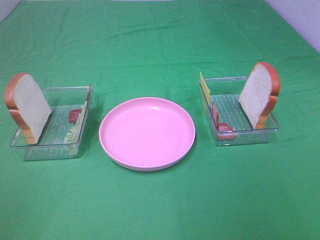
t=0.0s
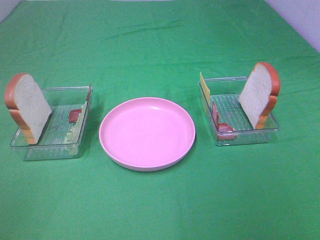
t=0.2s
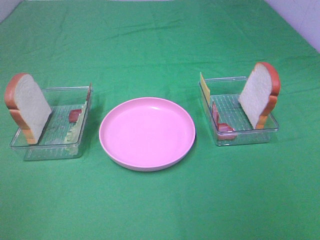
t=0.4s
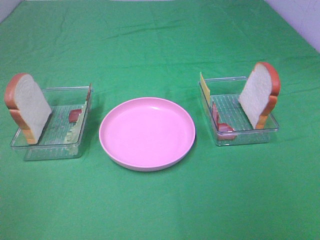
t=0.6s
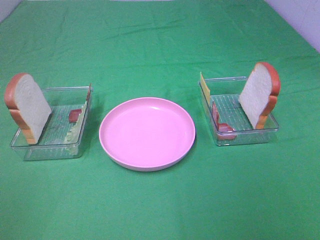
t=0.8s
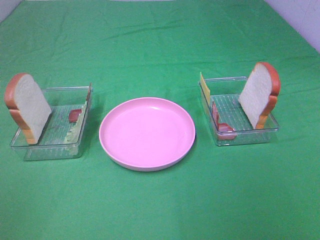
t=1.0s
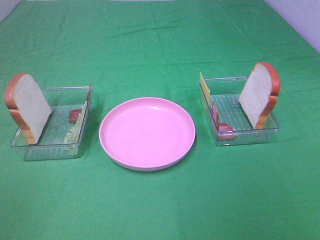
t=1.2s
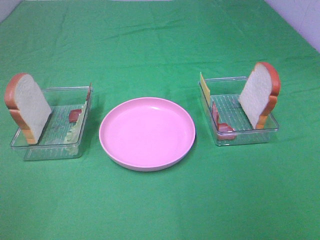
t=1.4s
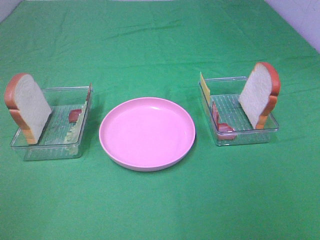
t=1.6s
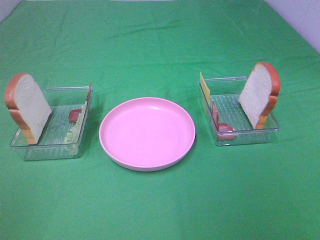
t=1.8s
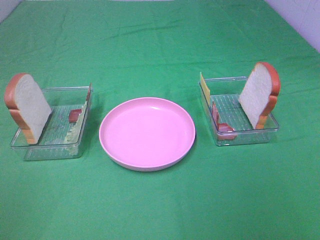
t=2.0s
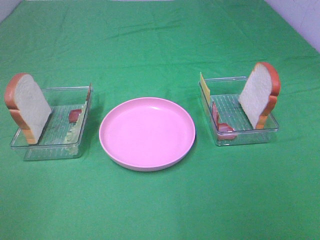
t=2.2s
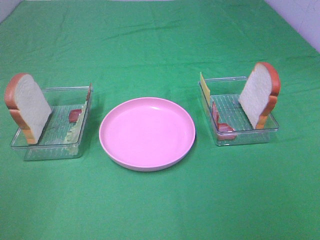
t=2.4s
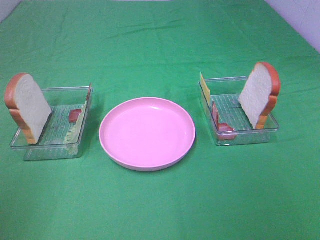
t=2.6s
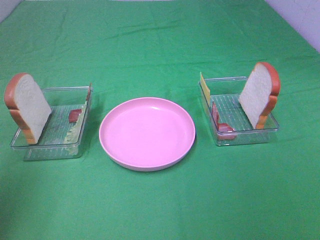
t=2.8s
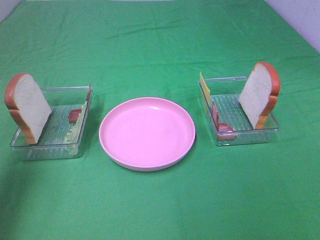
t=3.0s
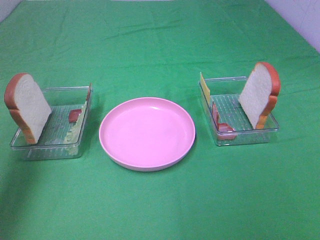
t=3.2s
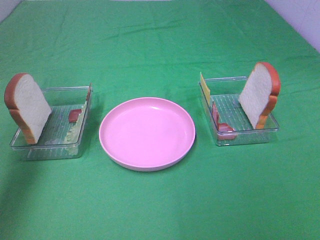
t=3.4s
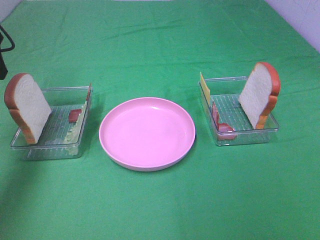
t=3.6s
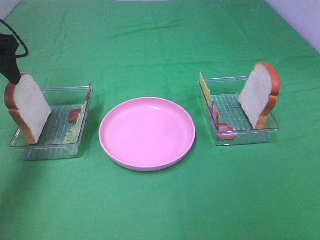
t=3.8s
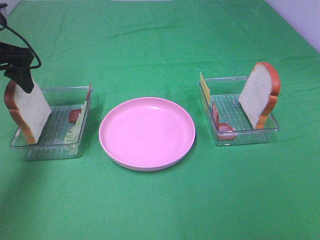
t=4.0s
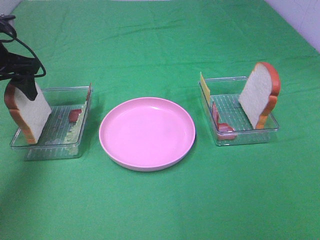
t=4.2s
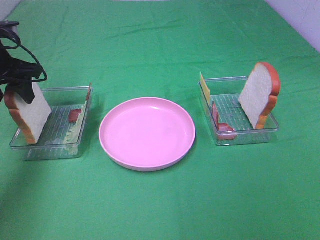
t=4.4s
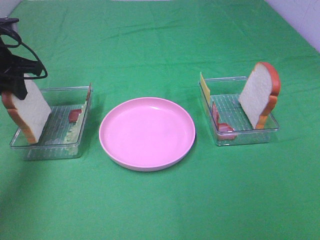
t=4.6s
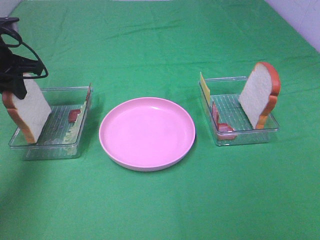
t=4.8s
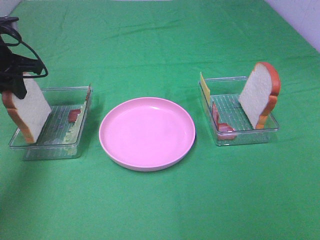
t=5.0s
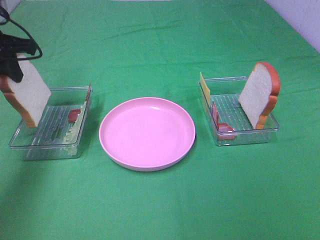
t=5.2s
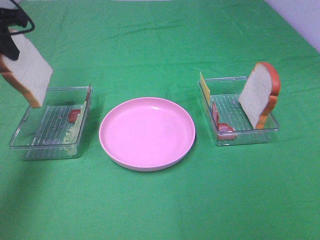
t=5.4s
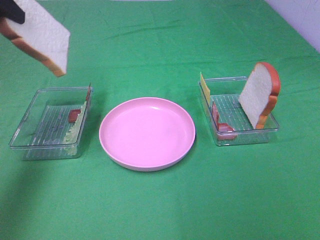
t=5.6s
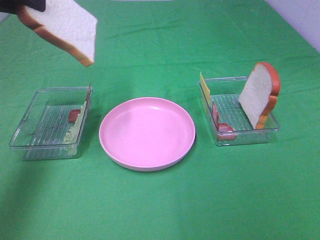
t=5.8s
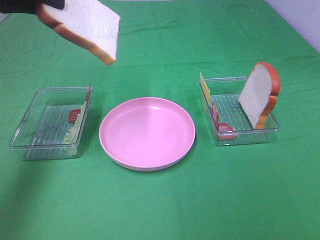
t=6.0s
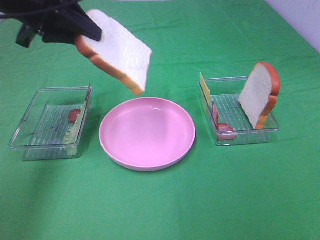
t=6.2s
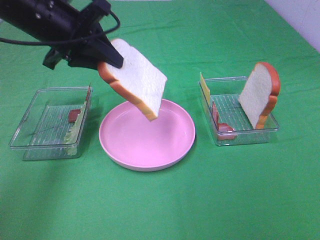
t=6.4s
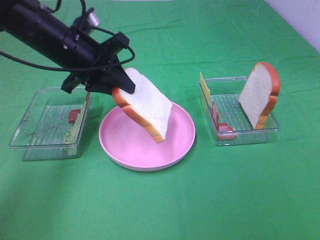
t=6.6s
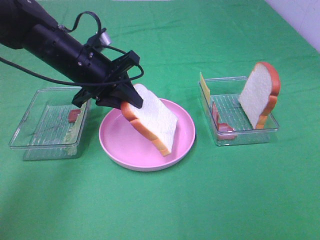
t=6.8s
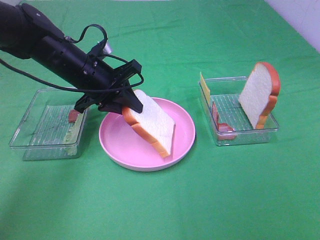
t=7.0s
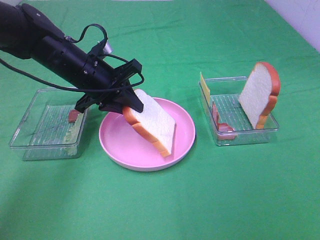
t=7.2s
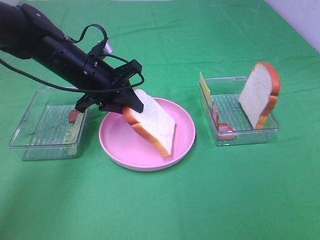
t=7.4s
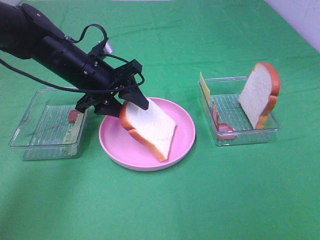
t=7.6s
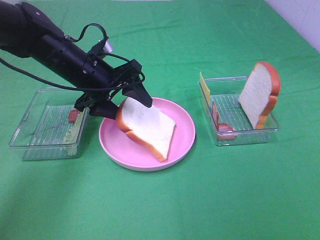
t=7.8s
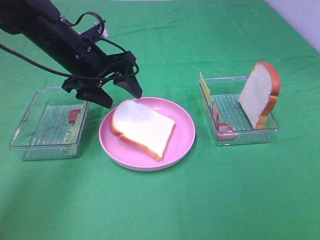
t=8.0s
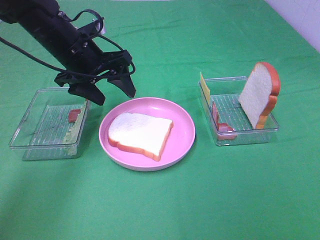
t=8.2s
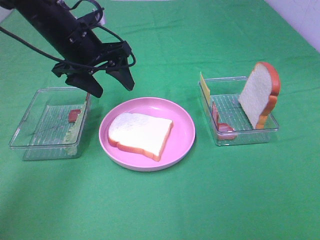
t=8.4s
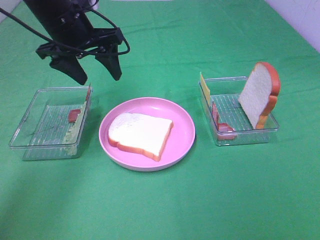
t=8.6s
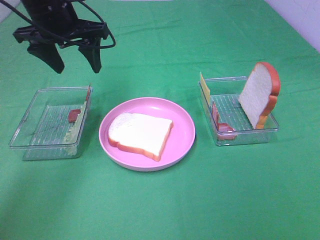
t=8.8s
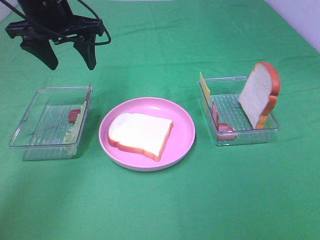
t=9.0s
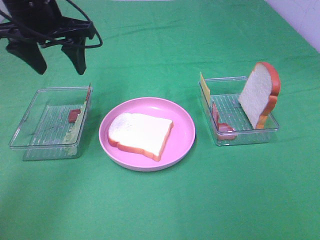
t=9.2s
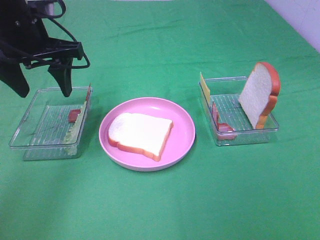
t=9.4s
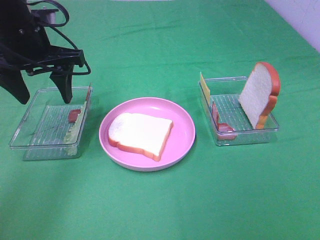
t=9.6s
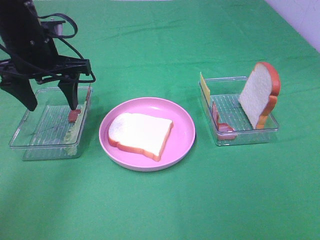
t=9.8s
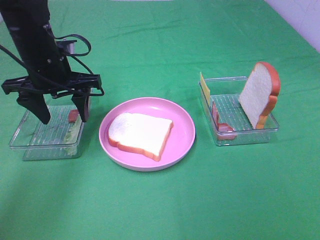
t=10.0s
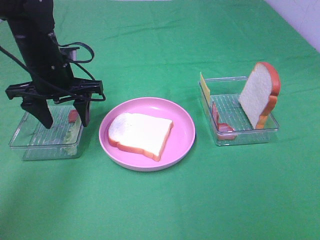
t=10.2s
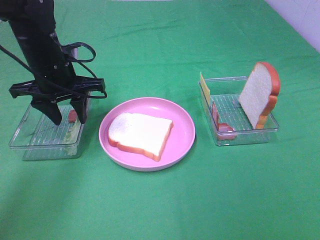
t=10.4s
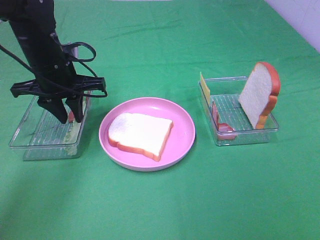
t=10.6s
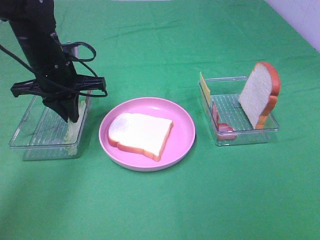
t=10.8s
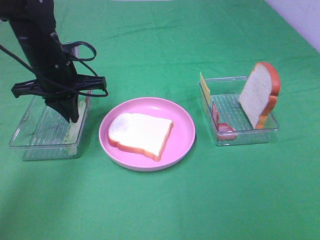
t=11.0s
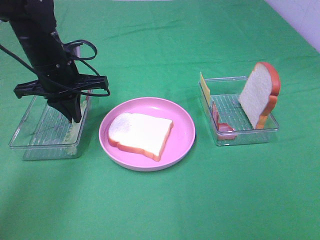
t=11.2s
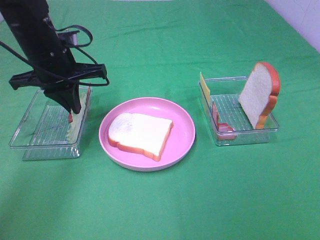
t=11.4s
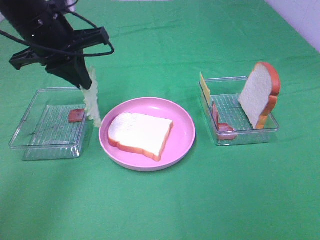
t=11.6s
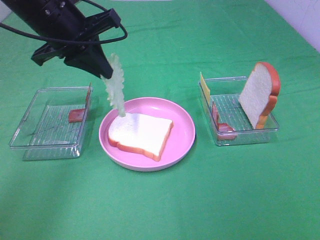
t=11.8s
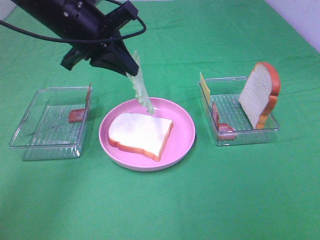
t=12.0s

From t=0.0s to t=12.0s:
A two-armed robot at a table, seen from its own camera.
Task of the whole recording: Make sandwiches.
Step, from t=0.0s to t=4.6s: Left hand:grab the bread slice.
Step, from t=4.8s to t=8.2s: Left hand:place the bread slice on the plate.
Step, from t=8.4s to t=11.2s: Left hand:grab the lettuce slice.
From t=0.0s to t=1.6s: Both grippers stay put.
From t=1.6s to t=3.0s: The left gripper shifts approximately 20 cm forward.
From t=3.0s to t=4.4s: The left gripper heads forward and downward, covering roughly 20 cm.
From t=4.4s to t=6.0s: The left gripper heads upward and to the right, covering some 15 cm, and closes its fingers.
From t=6.0s to t=7.6s: The left gripper goes roughly 20 cm downward and to the right, and opens up.
From t=7.6s to t=9.0s: The left gripper heads upward, covering some 10 cm.
From t=9.0s to t=10.4s: The left gripper moves downward, approximately 10 cm.
From t=10.4s to t=12.0s: The left gripper shifts approximately 10 cm upward and to the right, and closes.

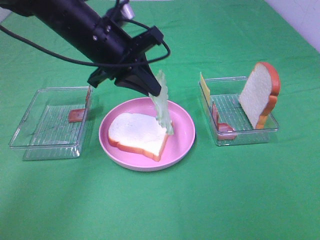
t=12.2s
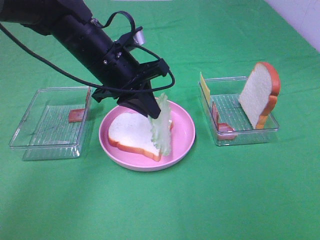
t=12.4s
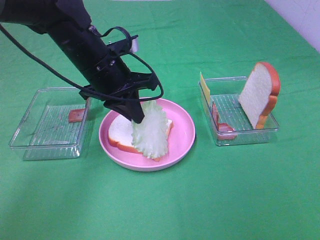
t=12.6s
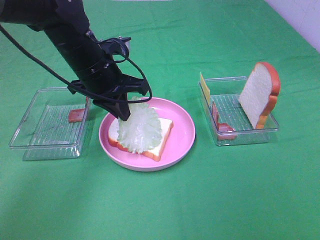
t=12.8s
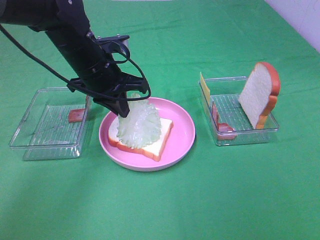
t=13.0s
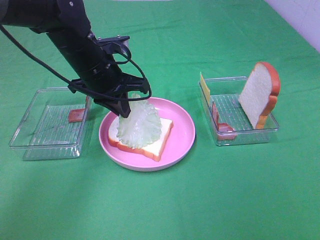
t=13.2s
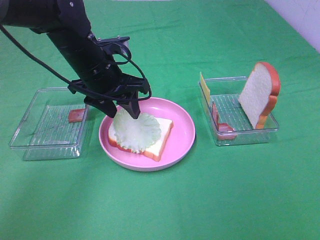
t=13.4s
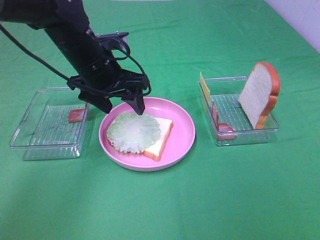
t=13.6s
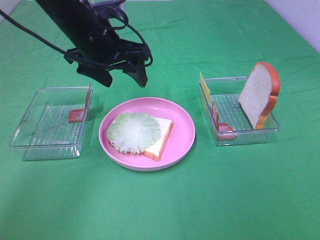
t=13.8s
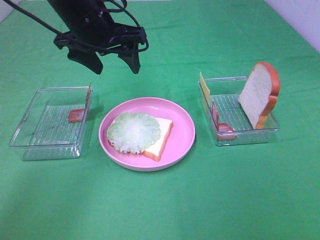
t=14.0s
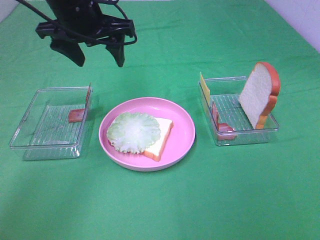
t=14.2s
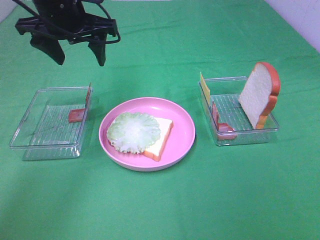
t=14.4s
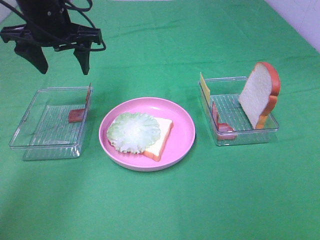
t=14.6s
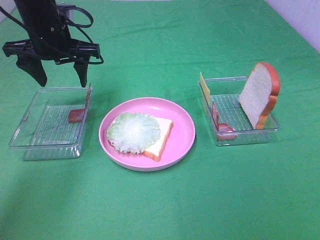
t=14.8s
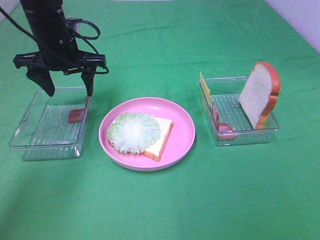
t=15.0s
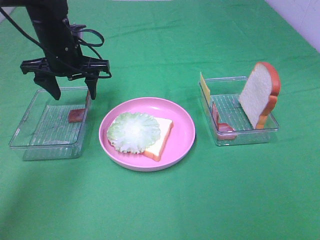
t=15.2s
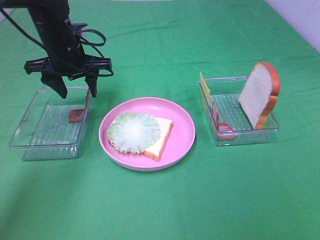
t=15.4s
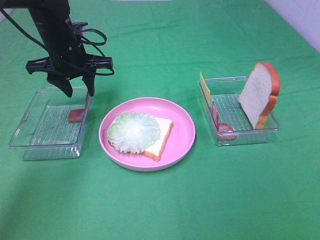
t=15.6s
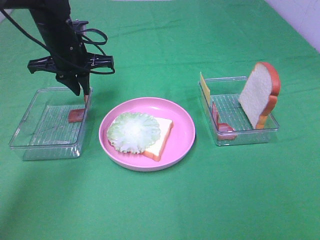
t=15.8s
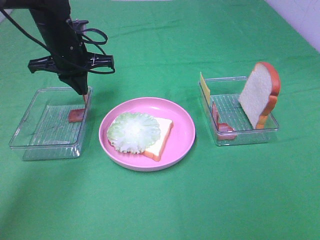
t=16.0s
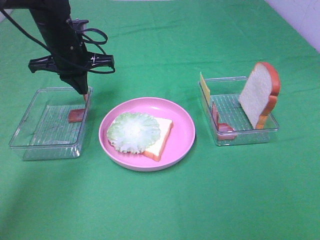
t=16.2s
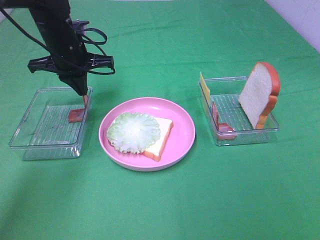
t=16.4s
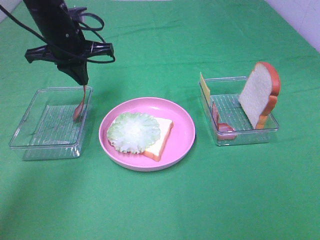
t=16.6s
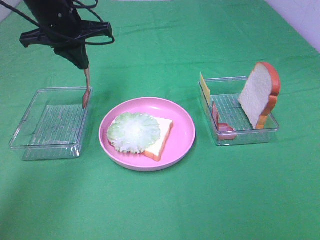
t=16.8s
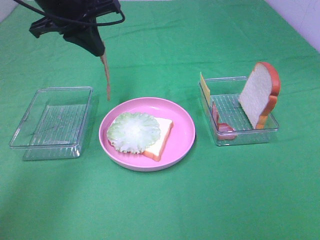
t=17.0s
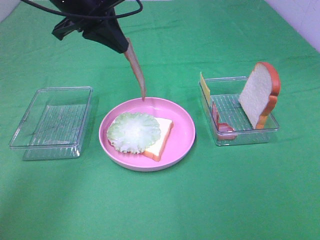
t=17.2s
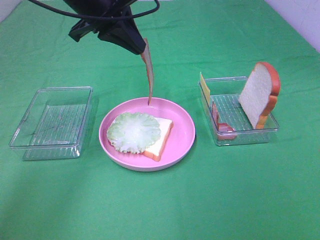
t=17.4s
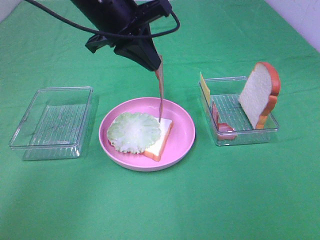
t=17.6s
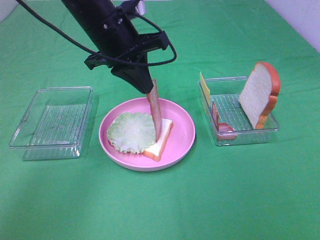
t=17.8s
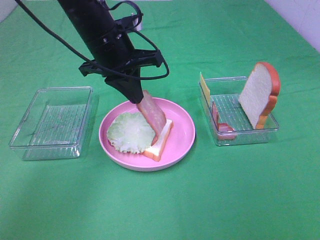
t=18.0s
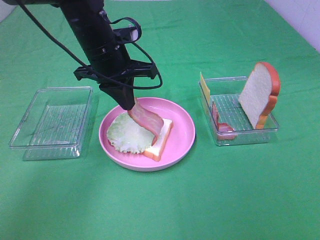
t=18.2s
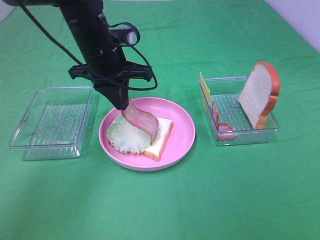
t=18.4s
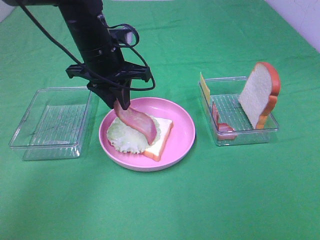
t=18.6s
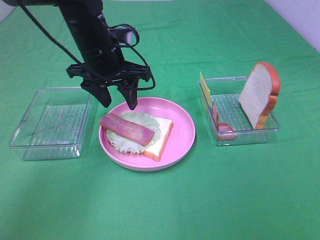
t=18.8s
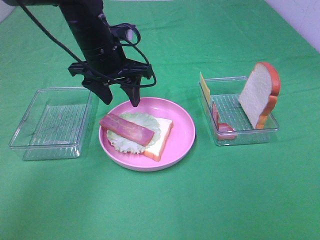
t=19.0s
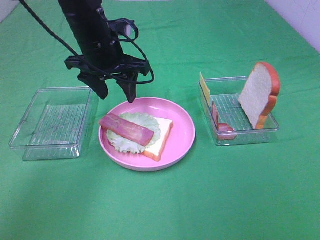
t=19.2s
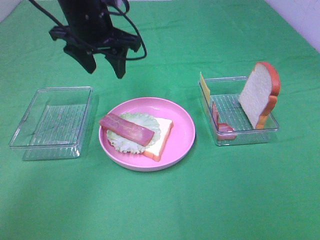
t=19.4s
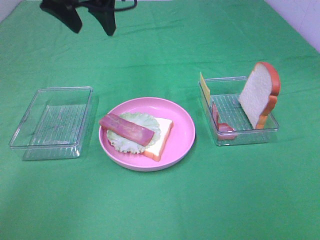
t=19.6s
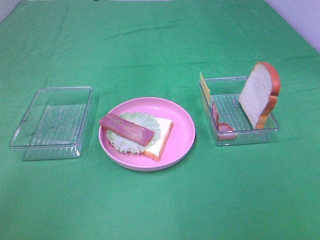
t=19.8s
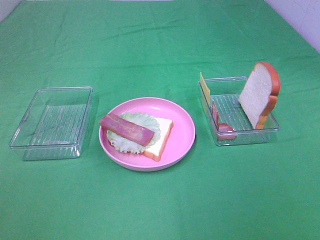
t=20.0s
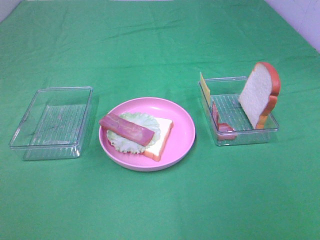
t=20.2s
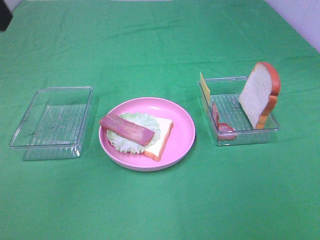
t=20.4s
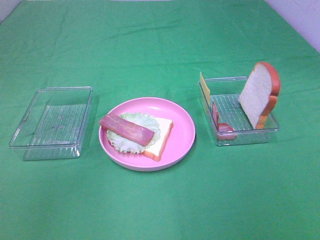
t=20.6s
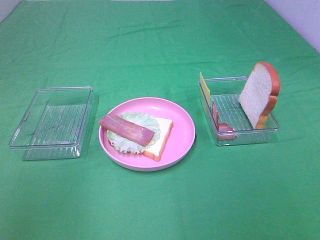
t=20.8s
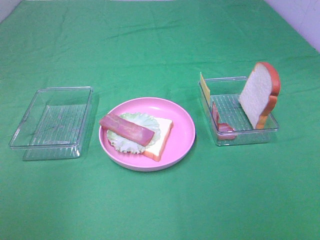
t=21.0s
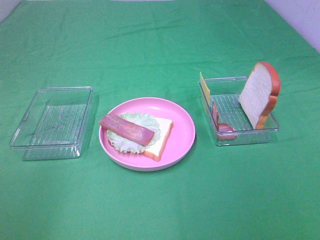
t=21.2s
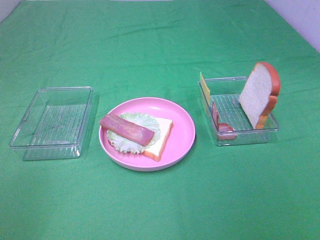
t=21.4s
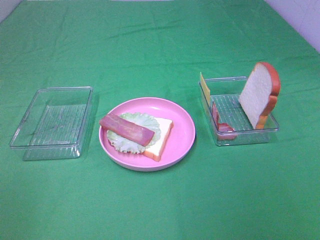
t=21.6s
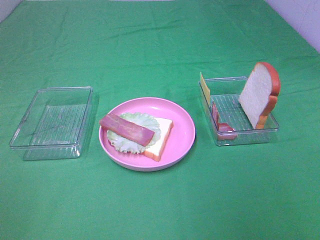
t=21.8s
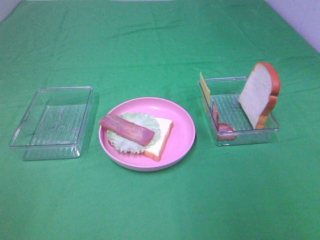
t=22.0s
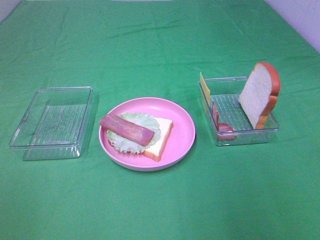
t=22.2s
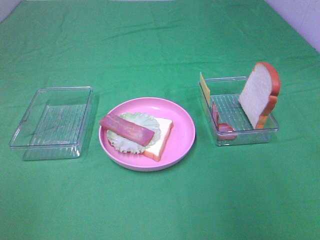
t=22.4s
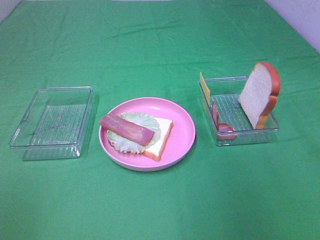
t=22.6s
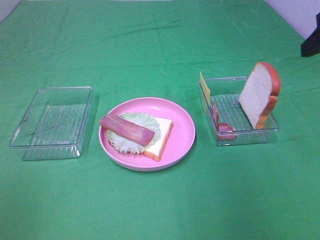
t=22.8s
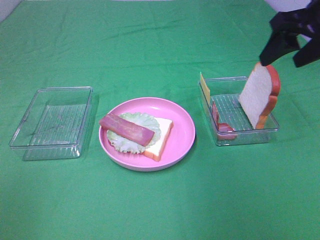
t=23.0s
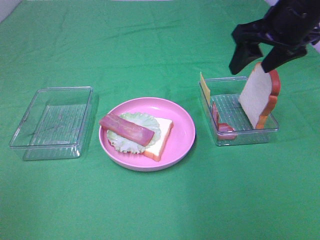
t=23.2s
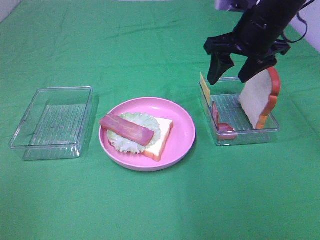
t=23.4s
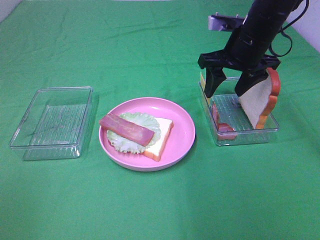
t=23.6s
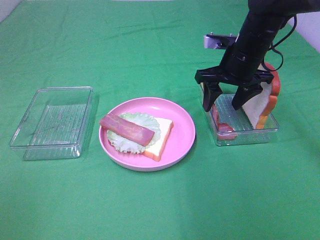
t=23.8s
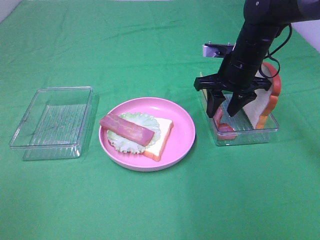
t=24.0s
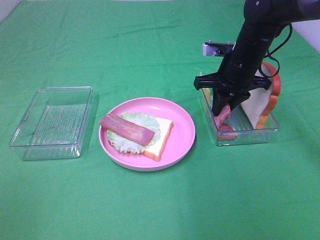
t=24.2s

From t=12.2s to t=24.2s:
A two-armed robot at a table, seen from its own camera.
Task of the whole recording: Make sandwiches.
Step, from t=12.2s to t=13.6s: Left hand:place the lettuce slice on the bread slice.
Step, from t=13.8s to t=16.2s: Left hand:grab the bacon.
Step, from t=16.4s to t=19.0s: Left hand:place bacon on lettuce slice.
From t=12.2s to t=13.8s: The left gripper opens its fingers.
From t=13.8s to t=15.2s: The left gripper heads to the left, downward and forward, covering roughly 10 cm.
From t=15.2s to t=16.6s: The left gripper closes its fingers.
From t=16.6s to t=18.2s: The left gripper goes some 10 cm to the right, and travels upward and back again, some 10 cm each way.
From t=18.2s to t=19.8s: The left gripper is displaced upward by approximately 20 cm, and opens.
From t=19.8s to t=21.2s: The left gripper shifts some 30 cm backward and to the left.
From t=22.6s to t=24.2s: The right gripper shifts approximately 30 cm forward, downward and to the left, and closes.
